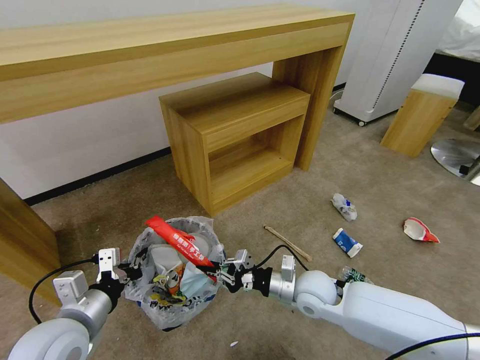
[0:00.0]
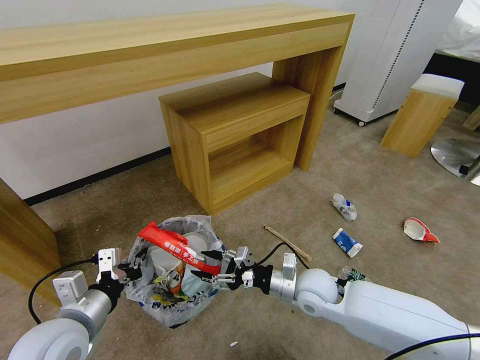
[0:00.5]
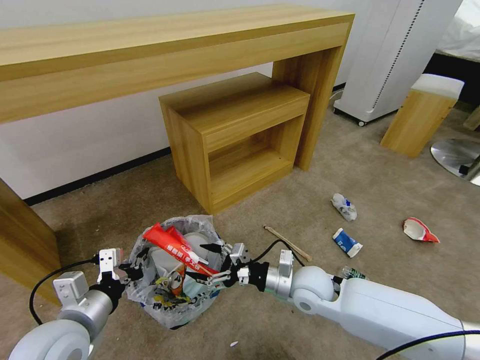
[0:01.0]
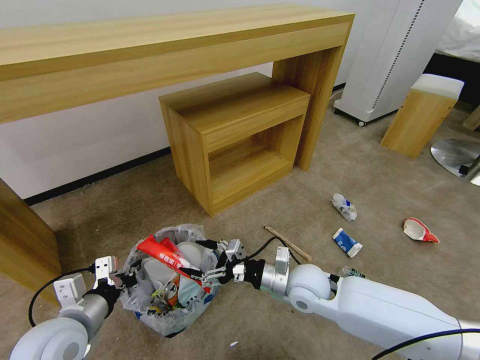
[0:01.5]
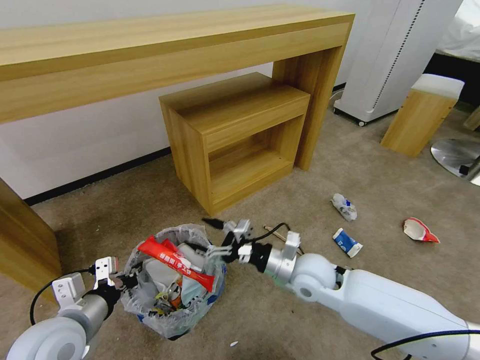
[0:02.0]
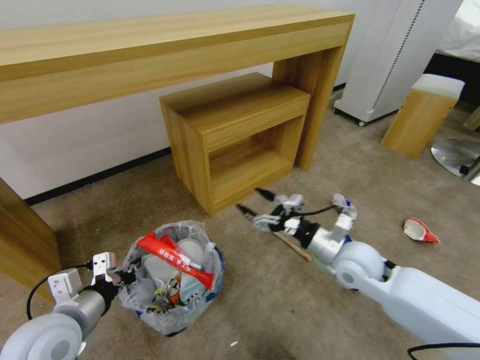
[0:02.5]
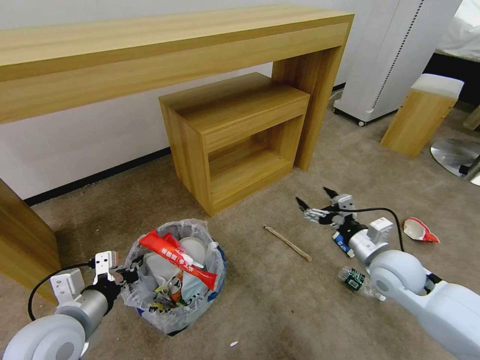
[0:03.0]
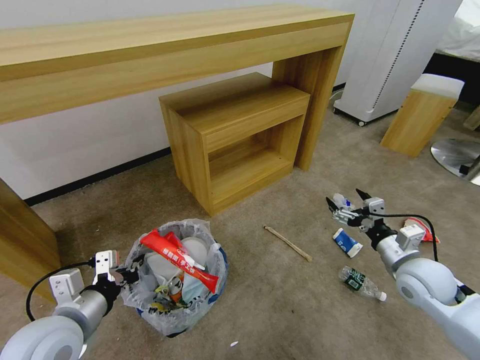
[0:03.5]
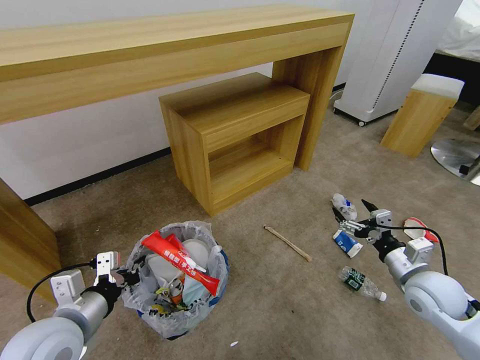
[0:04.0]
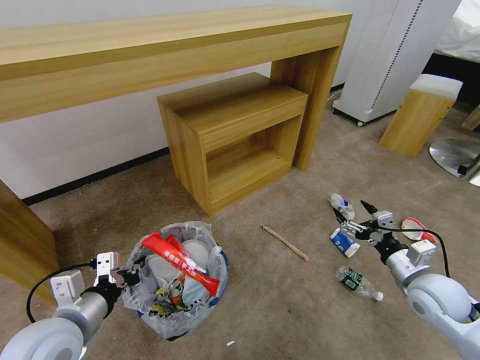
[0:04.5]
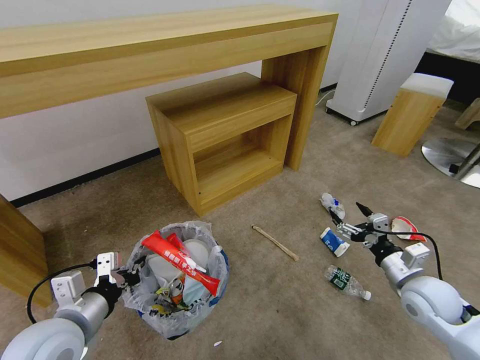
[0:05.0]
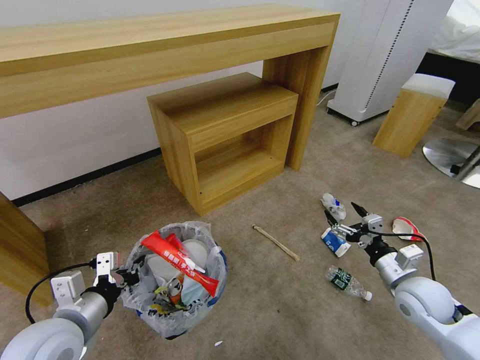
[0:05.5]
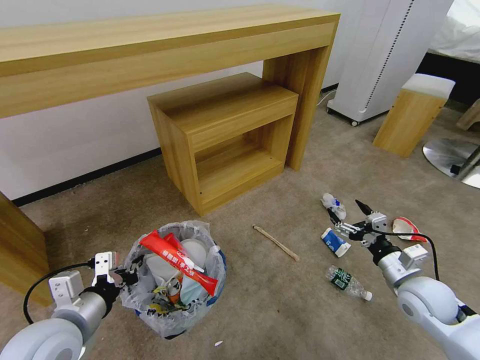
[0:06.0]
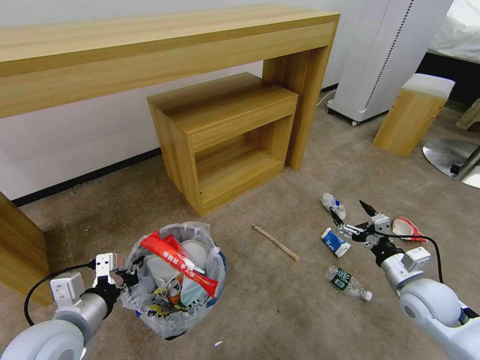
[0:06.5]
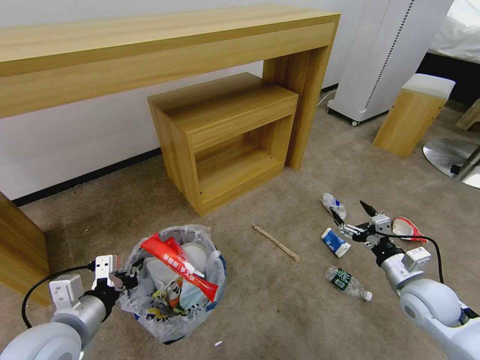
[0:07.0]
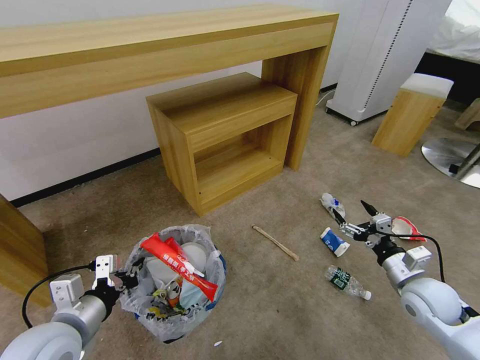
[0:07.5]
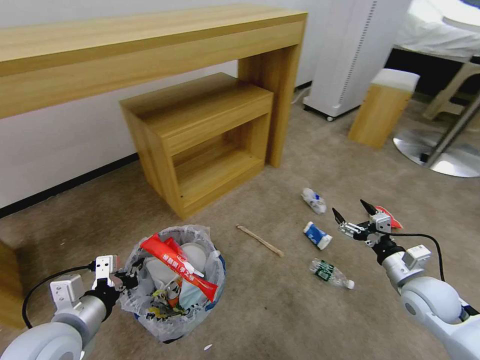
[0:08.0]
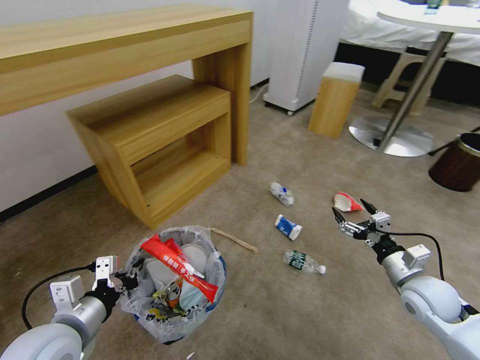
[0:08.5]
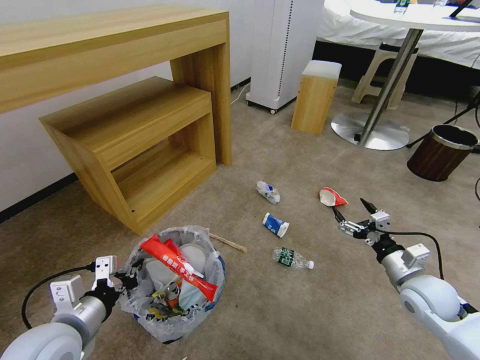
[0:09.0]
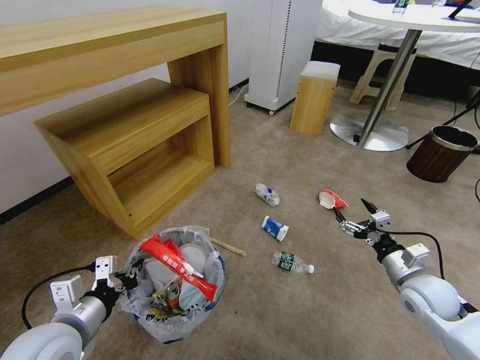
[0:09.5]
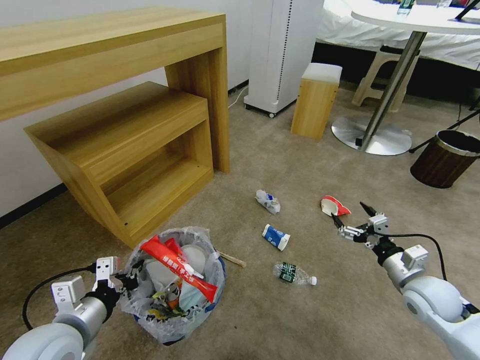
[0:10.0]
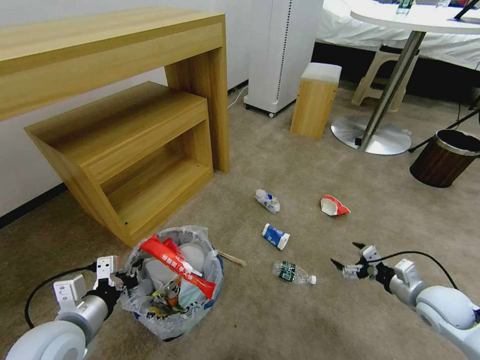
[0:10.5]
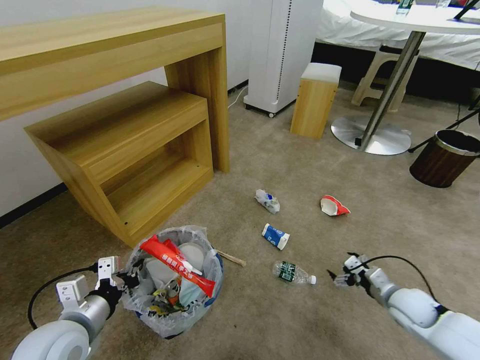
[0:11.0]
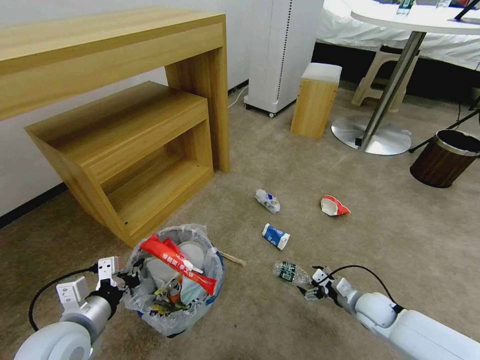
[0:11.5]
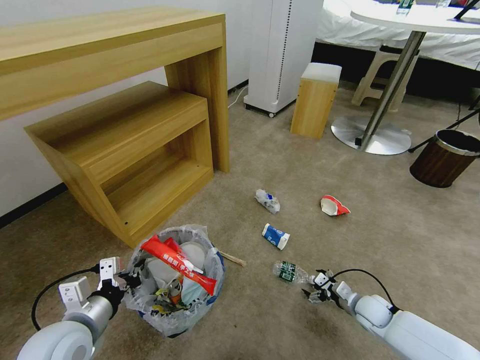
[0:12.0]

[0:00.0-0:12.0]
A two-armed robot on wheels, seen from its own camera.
Task of the whole recording: Pick up the trash bin and place the garbage on the floor into it.
0:00.0 to 0:02.0: The right gripper moves some 5 cm, and opens.
0:02.0 to 0:04.0: The right gripper heads to the right, covering roughly 25 cm.
0:04.0 to 0:06.0: The grippers move only a little.
0:10.0 to 0:12.0: The right gripper moves downward, about 20 cm.

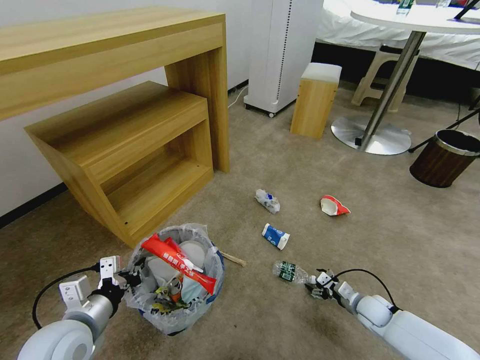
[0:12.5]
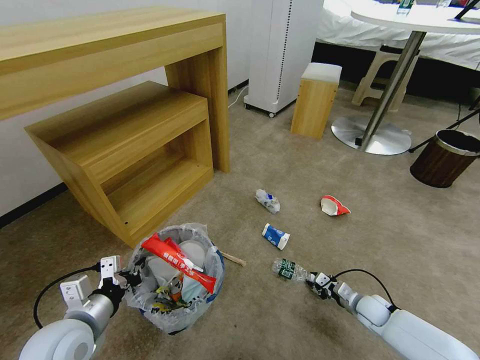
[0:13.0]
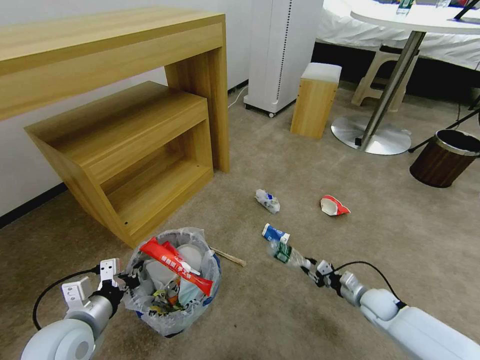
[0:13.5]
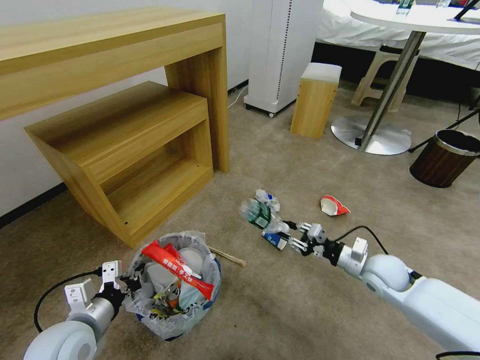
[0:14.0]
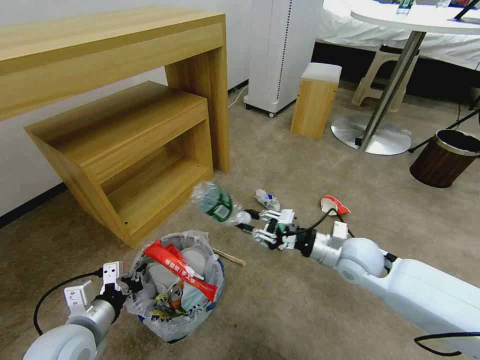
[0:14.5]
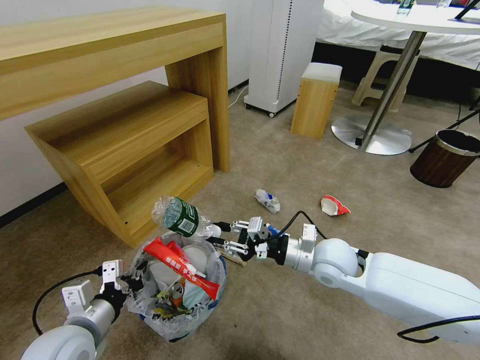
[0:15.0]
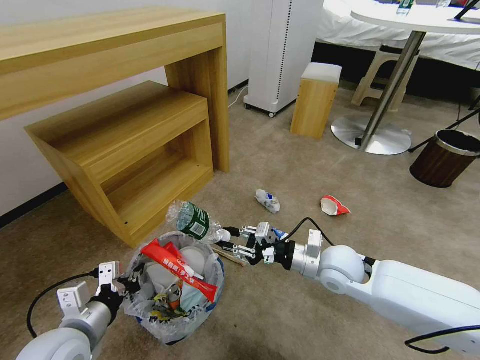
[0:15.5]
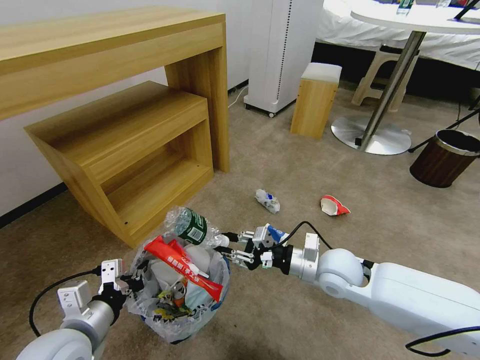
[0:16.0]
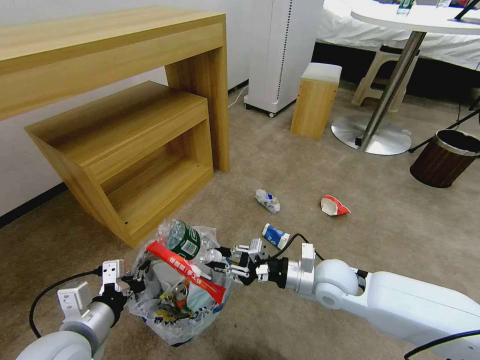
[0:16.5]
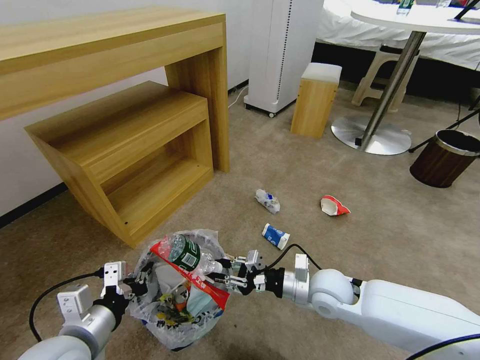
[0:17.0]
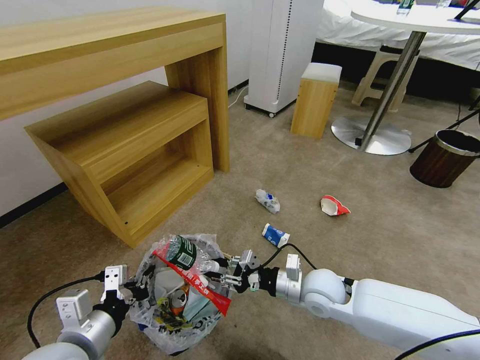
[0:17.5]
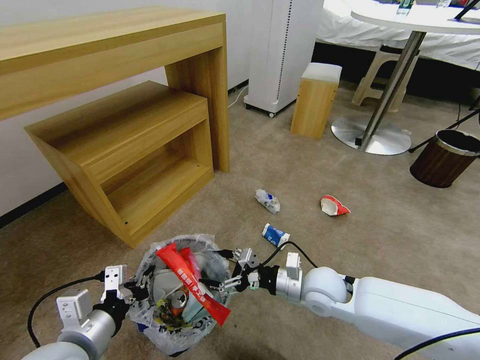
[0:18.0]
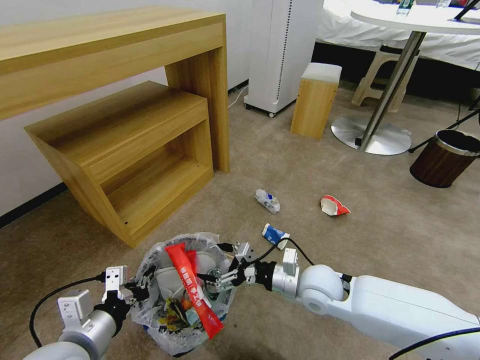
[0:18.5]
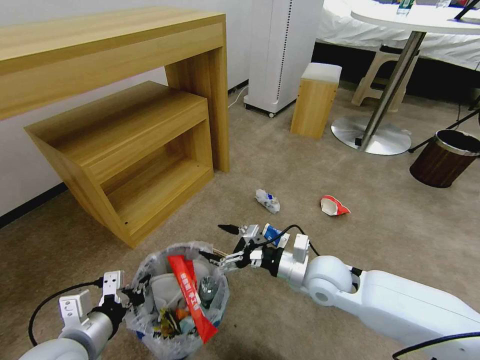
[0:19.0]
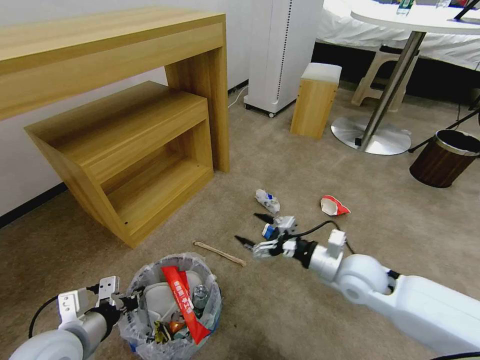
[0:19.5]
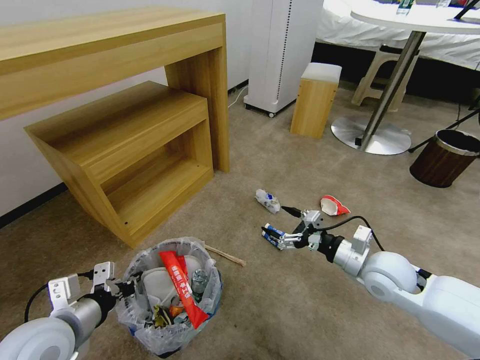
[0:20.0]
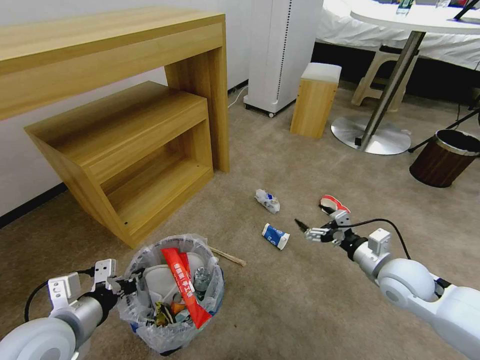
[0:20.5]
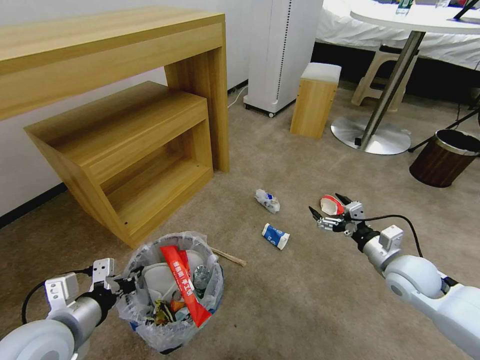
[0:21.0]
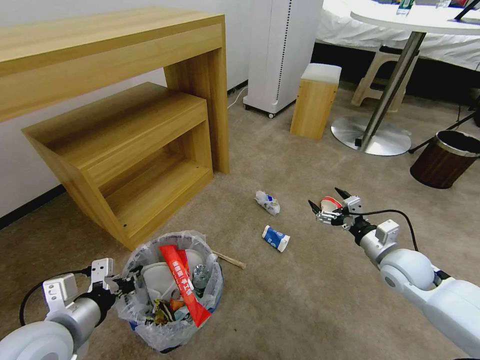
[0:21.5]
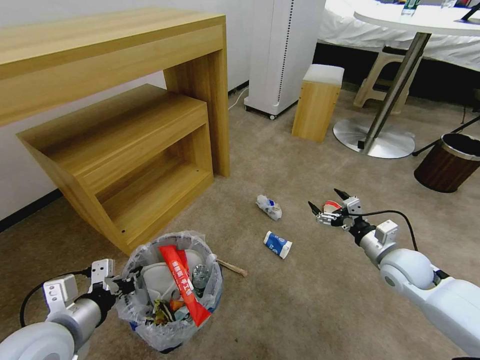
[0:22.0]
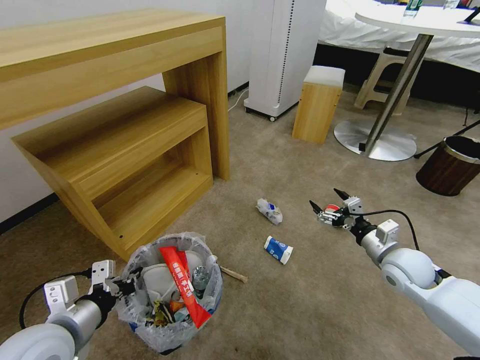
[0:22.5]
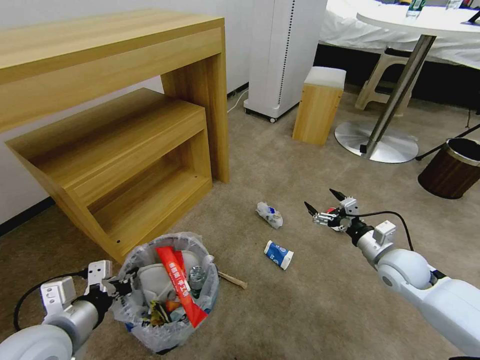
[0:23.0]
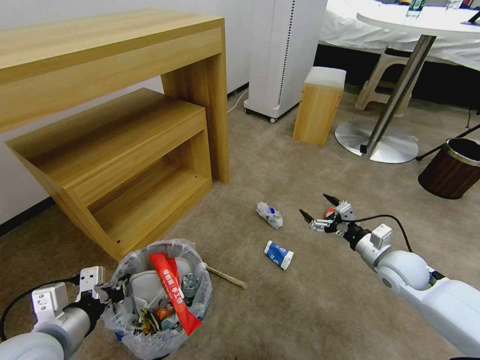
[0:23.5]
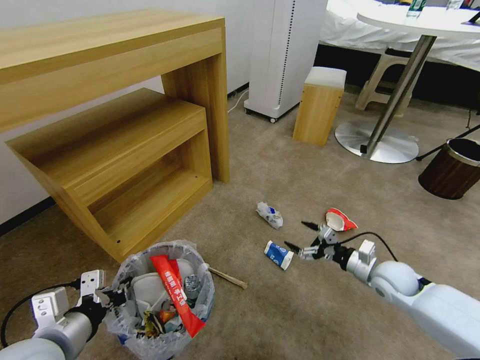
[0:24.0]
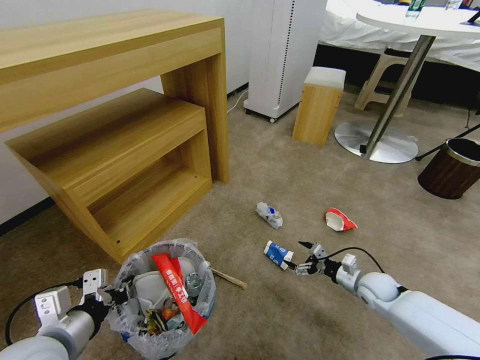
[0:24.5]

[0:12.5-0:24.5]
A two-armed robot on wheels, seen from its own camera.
Task of the whole recording: Pick up the trash bin and place the garbage on the floor into it.
0:12.5 to 0:14.5: The right gripper goes some 30 cm upward and to the left, and closes up.
0:14.5 to 0:16.5: The right gripper moves roughly 5 cm.
0:16.5 to 0:18.5: The right gripper opens up.
0:18.5 to 0:20.5: The right gripper travels to the right by roughly 15 cm.
0:20.5 to 0:22.5: The right gripper moves approximately 5 cm.
0:22.5 to 0:24.5: The right gripper is displaced downward by some 15 cm.

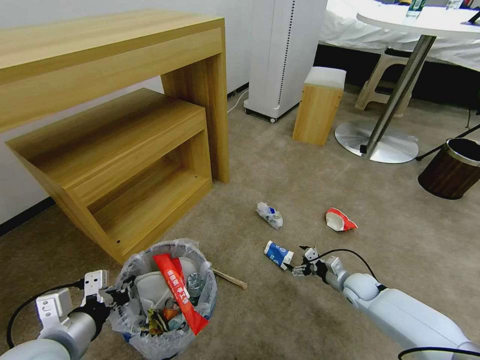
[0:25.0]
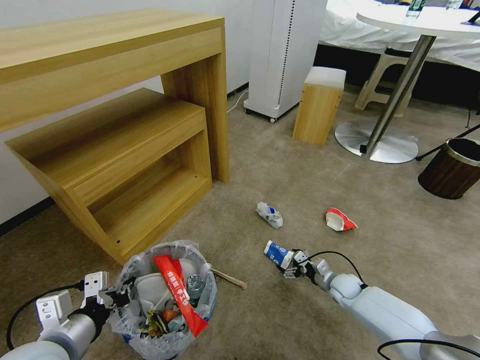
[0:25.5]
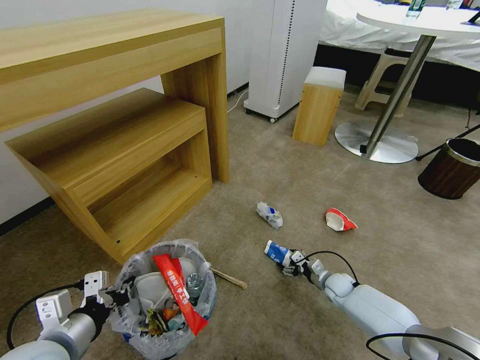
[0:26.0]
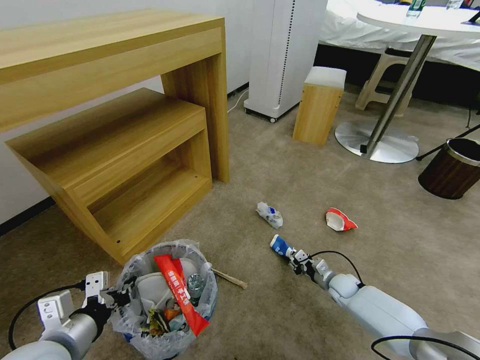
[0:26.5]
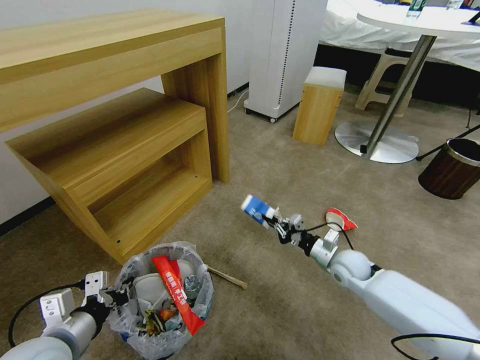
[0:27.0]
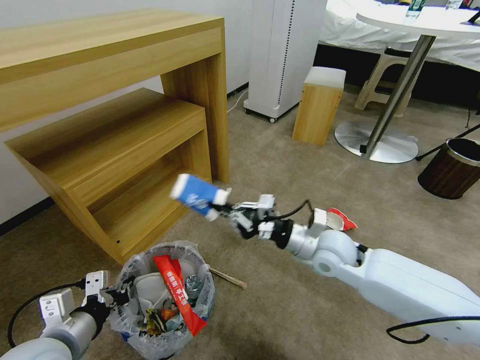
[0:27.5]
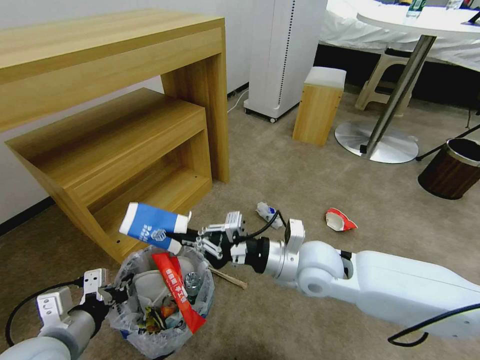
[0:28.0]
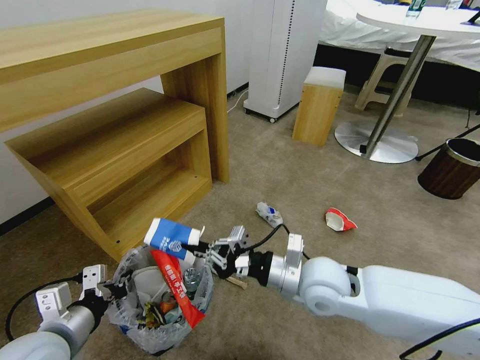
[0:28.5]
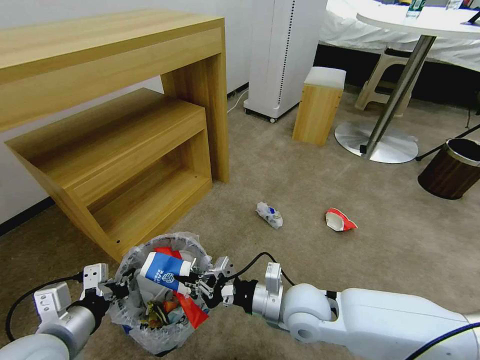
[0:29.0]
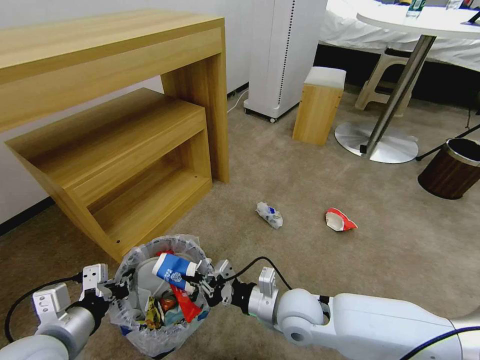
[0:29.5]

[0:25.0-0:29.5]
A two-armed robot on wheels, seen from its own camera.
Task of the whole recording: Pick up the trash bin and place the garbage on the floor into it.
0:25.0 to 0:27.0: The right gripper is displaced upward and to the left by roughly 10 cm, and closes its fingers.
0:27.0 to 0:29.5: The right gripper heads to the left, backward and upward, covering approximately 25 cm.
